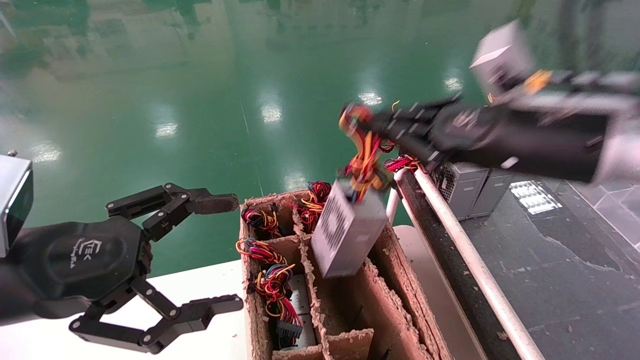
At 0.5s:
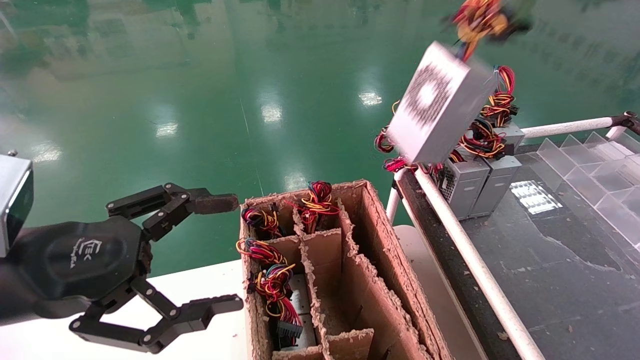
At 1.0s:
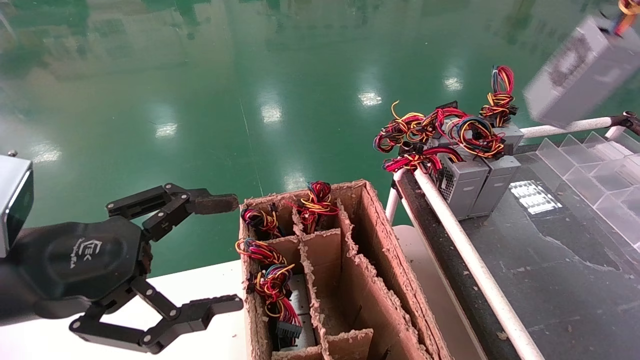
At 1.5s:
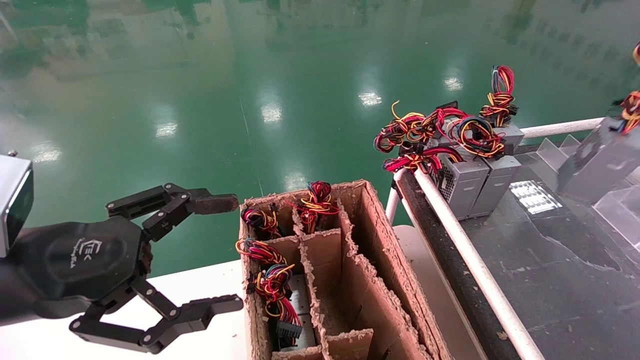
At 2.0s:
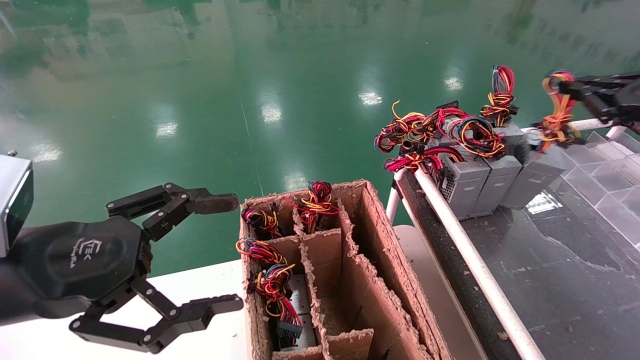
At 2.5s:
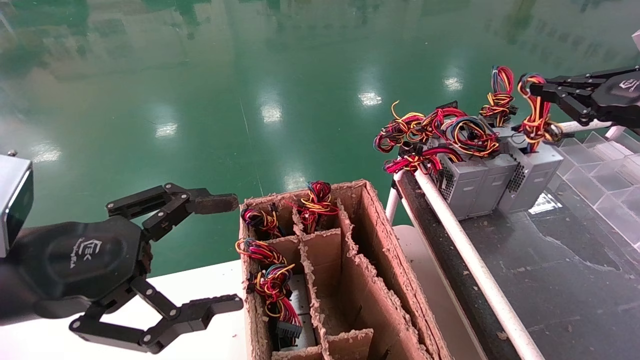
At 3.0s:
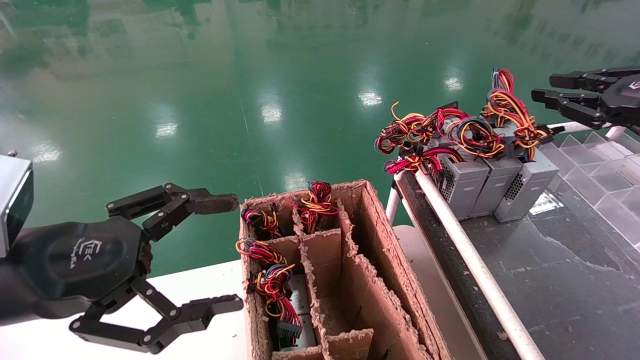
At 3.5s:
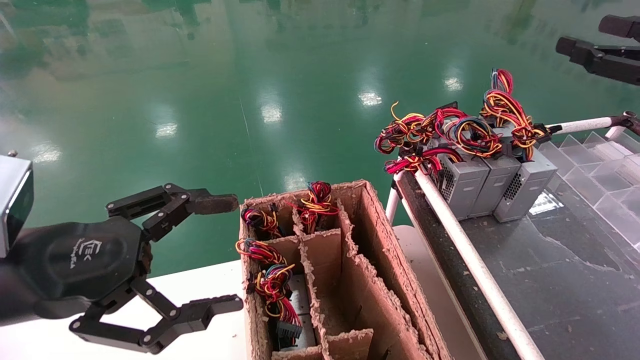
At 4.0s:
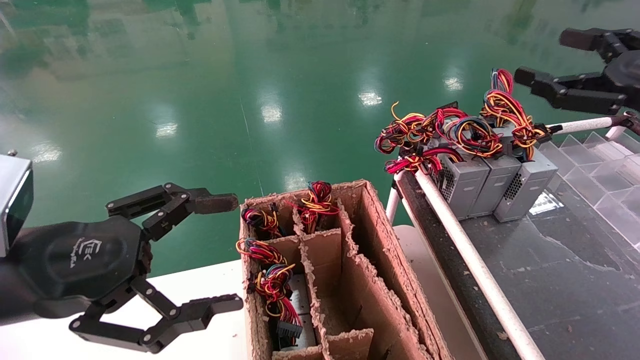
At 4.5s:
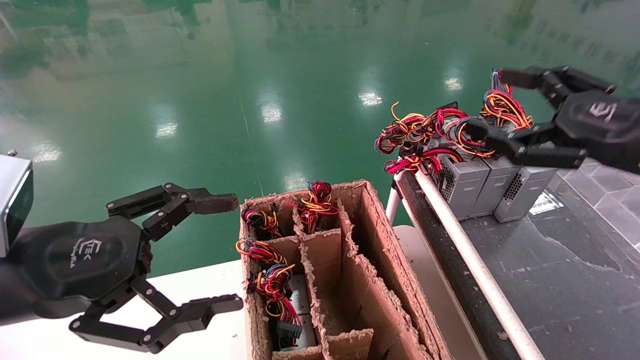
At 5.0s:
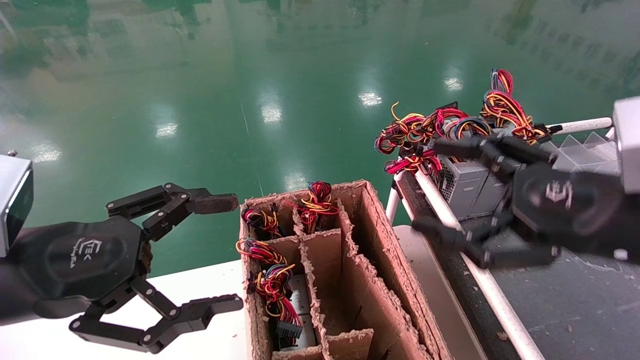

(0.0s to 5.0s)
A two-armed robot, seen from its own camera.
Step, 0.0s - 2.5s: Place the power supply on the operating table.
0.0s - 2.5s: The right gripper heads to the right, covering roughly 20 cm.
2.5s - 5.0s: The right gripper heads to the left, backward and downward, covering some 20 cm, and opens up.

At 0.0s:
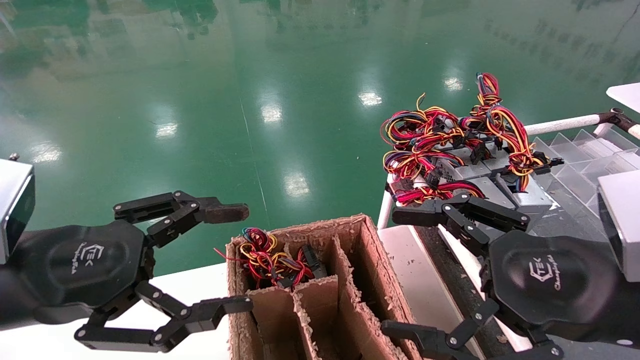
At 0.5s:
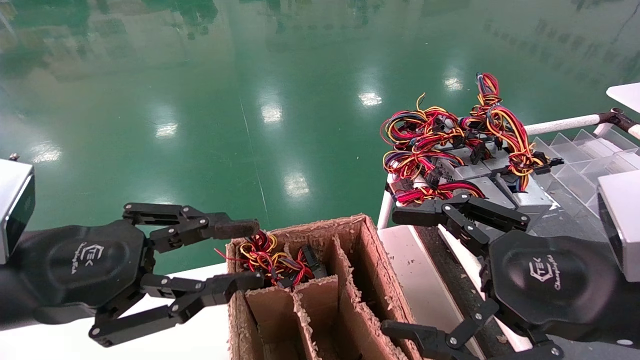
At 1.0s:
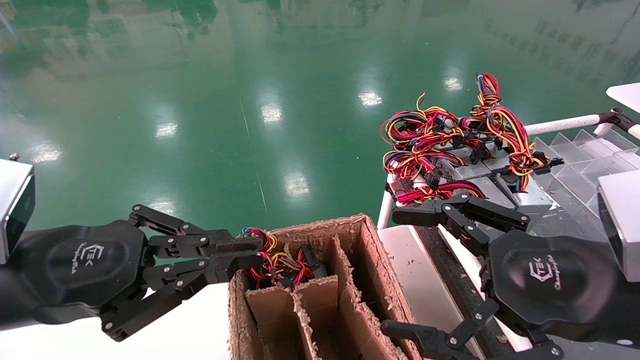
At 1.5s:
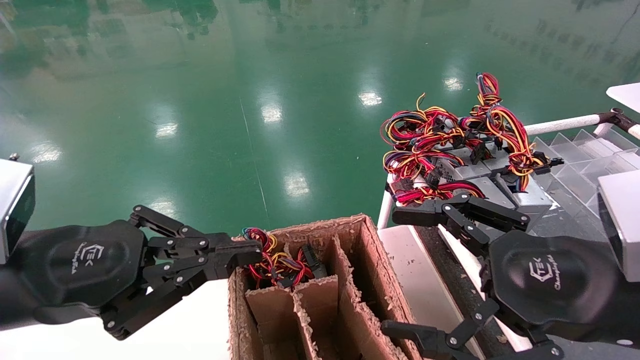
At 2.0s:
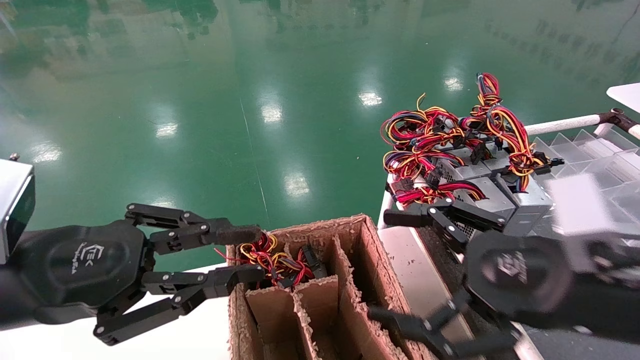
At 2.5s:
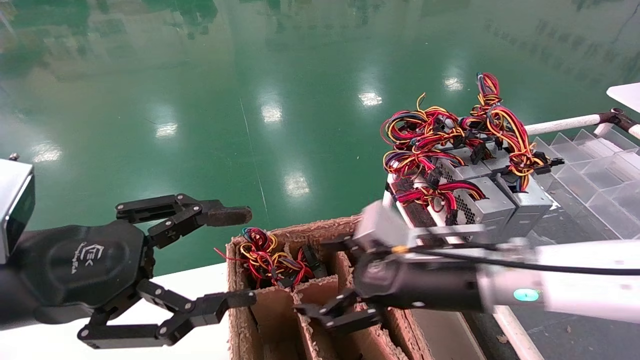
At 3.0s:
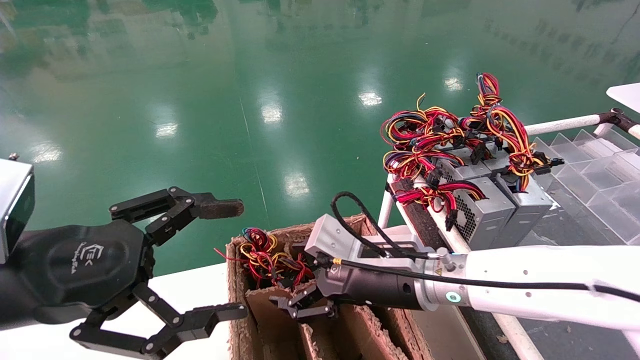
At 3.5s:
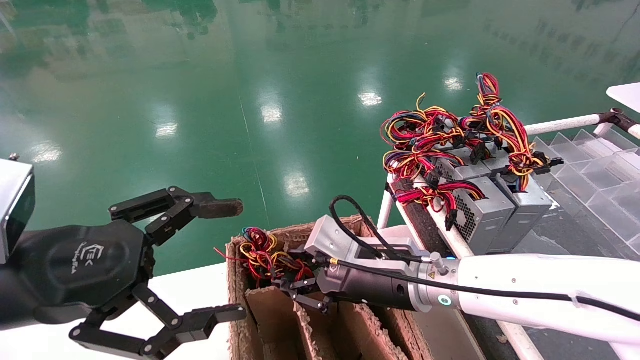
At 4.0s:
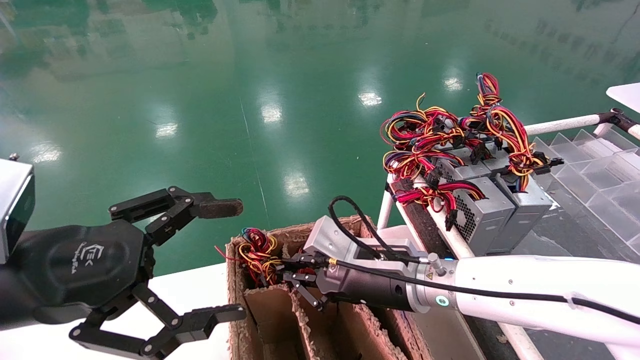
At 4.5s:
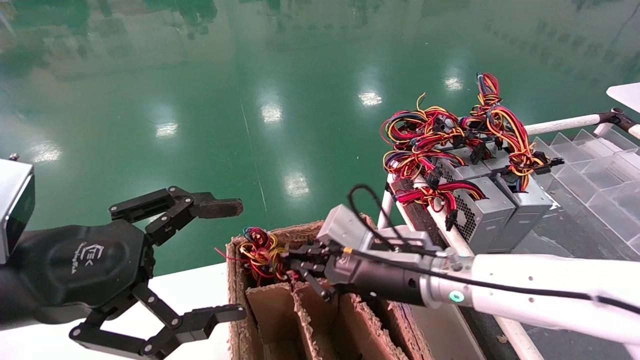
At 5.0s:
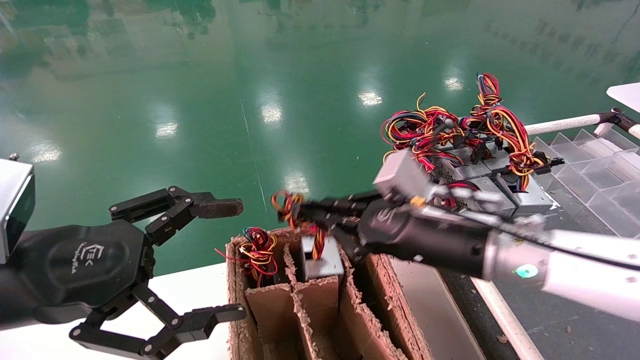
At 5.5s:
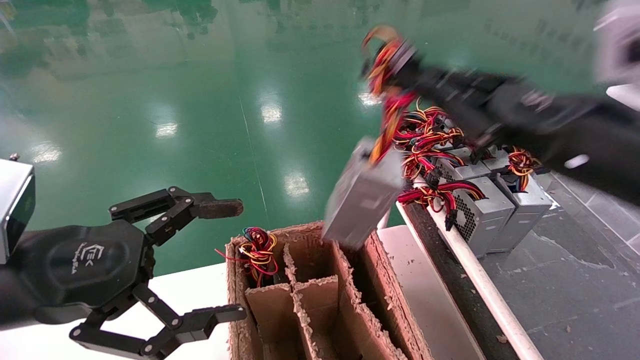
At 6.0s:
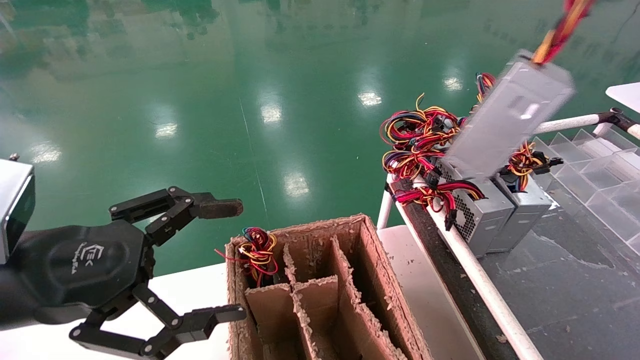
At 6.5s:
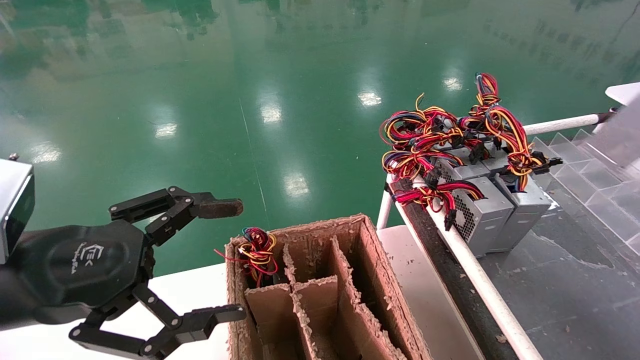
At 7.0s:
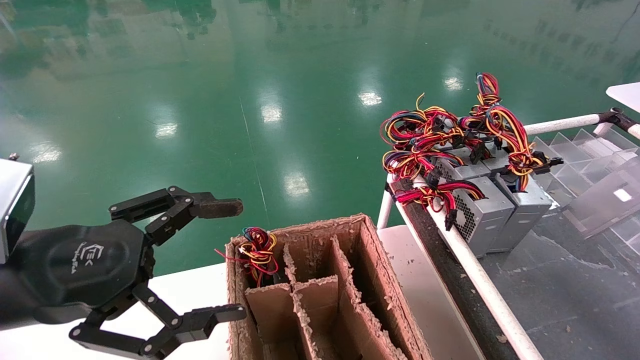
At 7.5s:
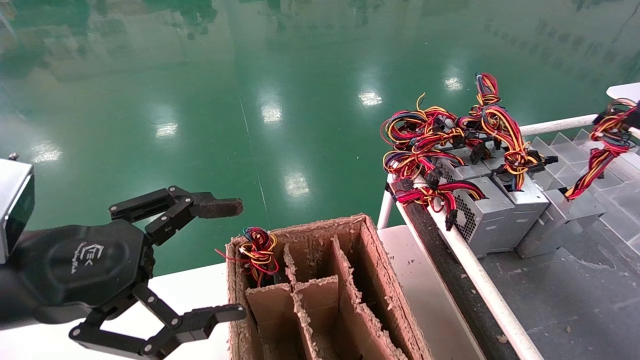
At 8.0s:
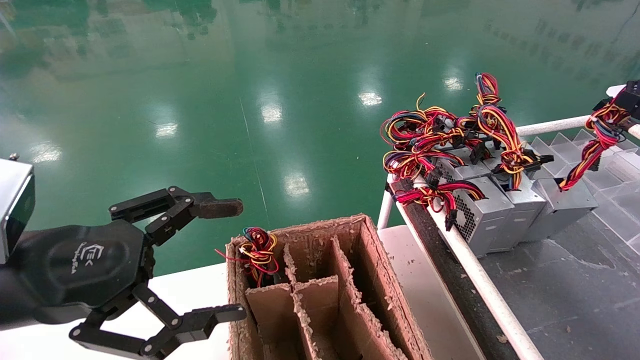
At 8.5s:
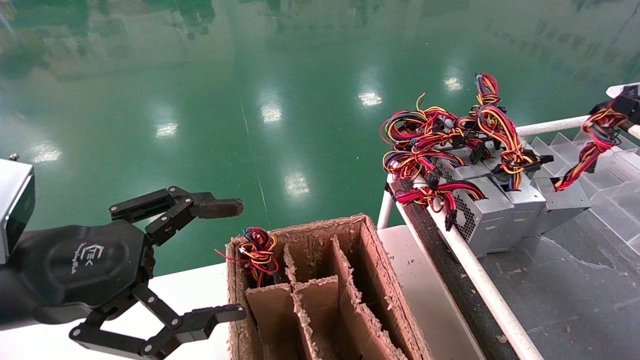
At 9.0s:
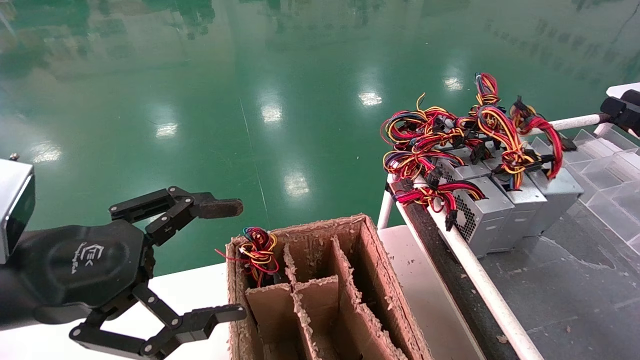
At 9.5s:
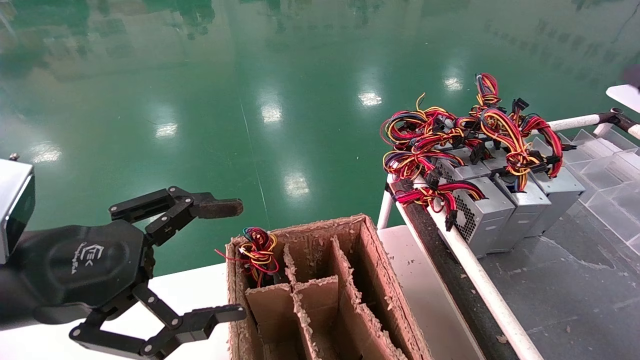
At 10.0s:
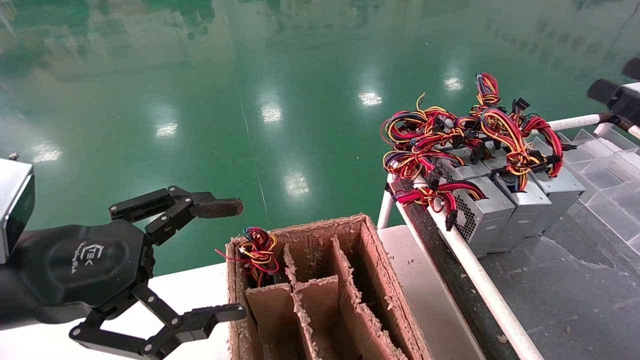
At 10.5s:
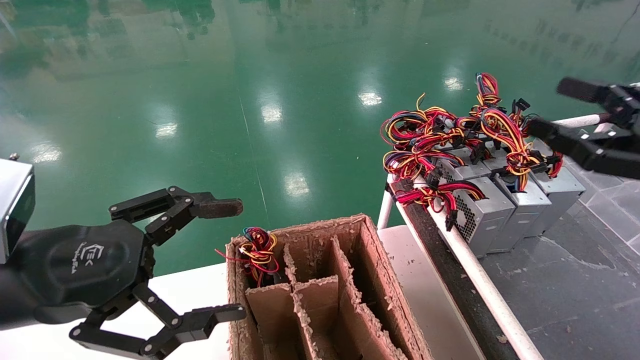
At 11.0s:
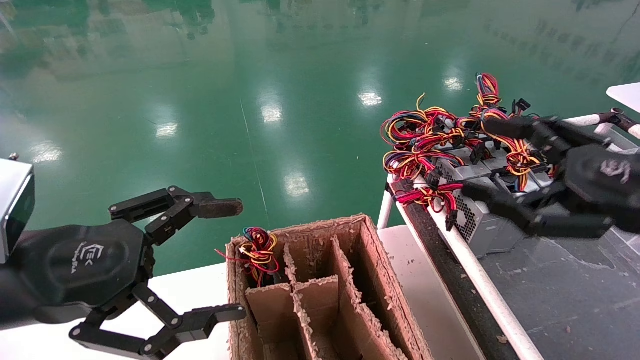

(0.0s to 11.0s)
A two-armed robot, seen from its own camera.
Step, 1.5s - 4.5s: Grab and lift the power supply from the large box.
Step, 5.0s - 8.0s: Place the power supply on the operating table.
0.0s - 2.0s: The left gripper closes up.
2.0s - 3.5s: The left gripper opens up. The right gripper is displaced to the left, forward and downward by about 20 cm, and closes.
3.5s - 5.5s: The right gripper goes roughly 25 cm to the right, upward and backward, and closes its fingers.
5.5s - 7.5s: The right gripper travels to the right by some 25 cm.
7.5s - 9.0s: The grippers stay close to where they were, moving slightly.
9.0s - 11.0s: The right gripper heads to the left, covering approximately 15 cm, and opens.
